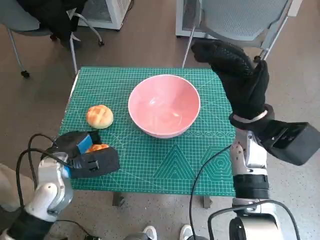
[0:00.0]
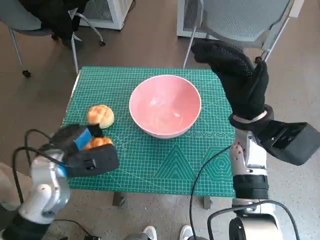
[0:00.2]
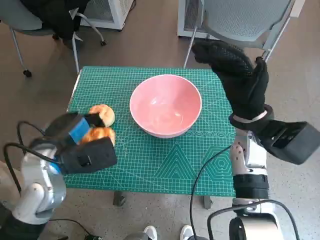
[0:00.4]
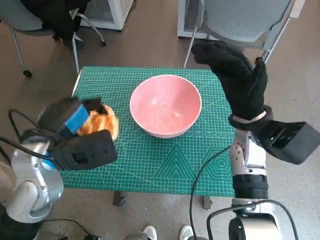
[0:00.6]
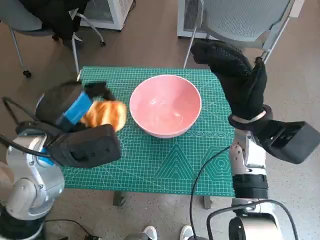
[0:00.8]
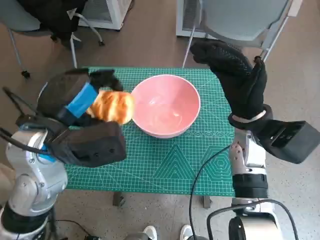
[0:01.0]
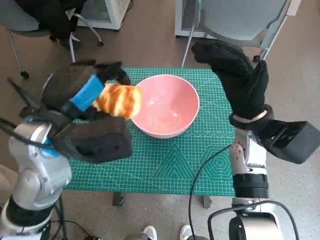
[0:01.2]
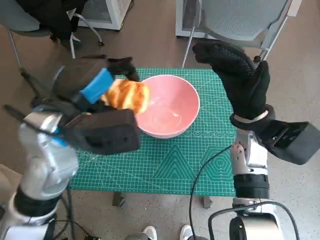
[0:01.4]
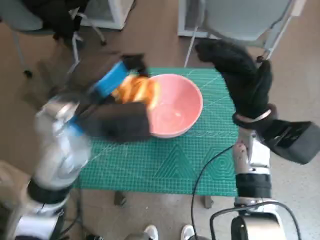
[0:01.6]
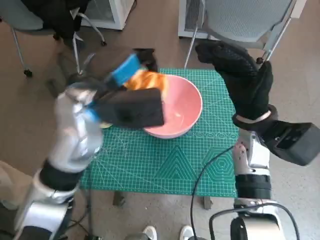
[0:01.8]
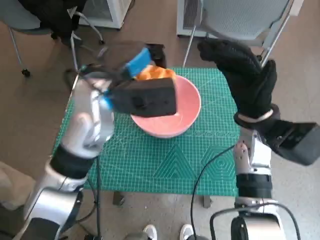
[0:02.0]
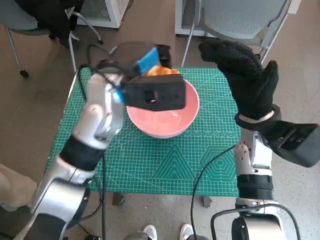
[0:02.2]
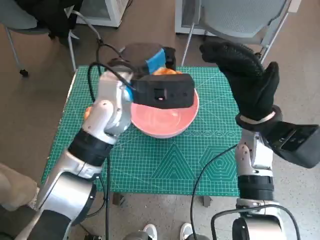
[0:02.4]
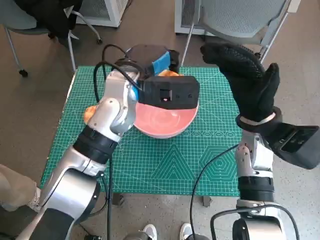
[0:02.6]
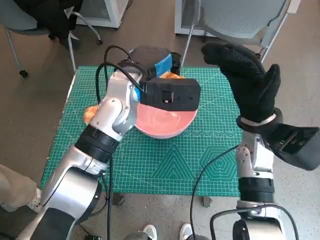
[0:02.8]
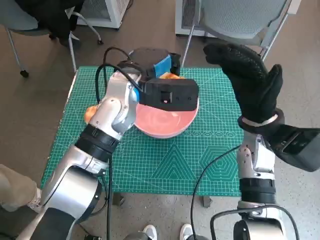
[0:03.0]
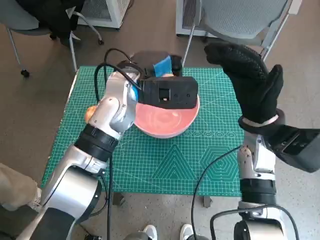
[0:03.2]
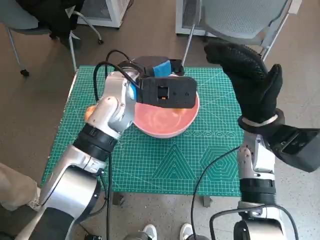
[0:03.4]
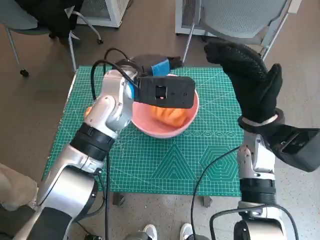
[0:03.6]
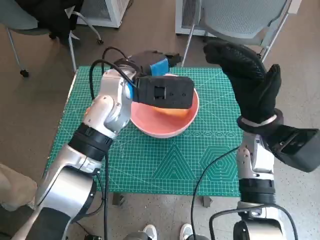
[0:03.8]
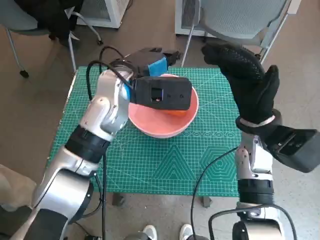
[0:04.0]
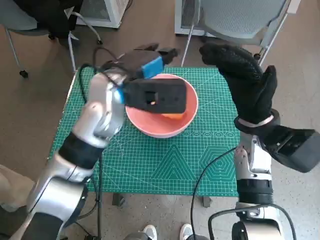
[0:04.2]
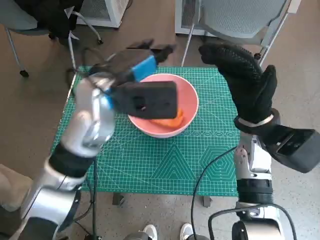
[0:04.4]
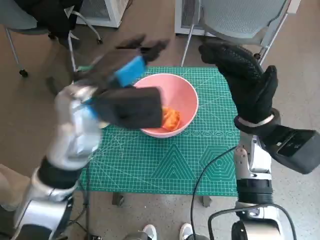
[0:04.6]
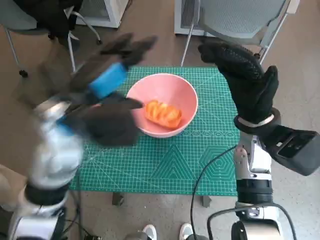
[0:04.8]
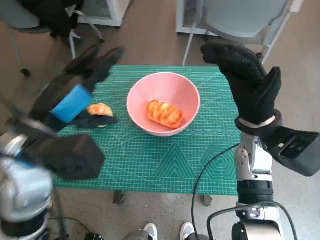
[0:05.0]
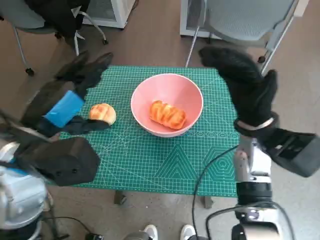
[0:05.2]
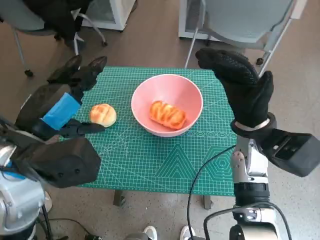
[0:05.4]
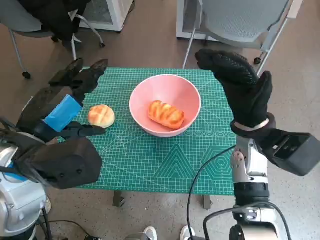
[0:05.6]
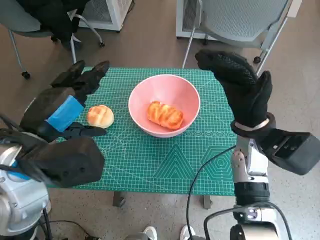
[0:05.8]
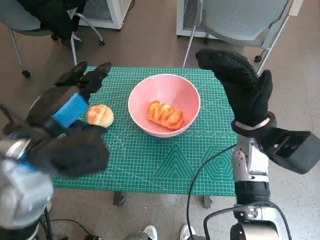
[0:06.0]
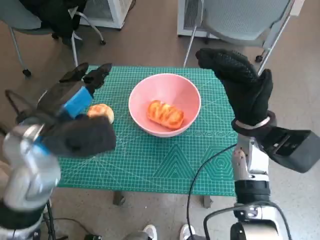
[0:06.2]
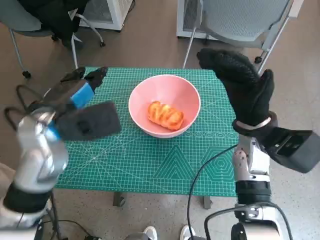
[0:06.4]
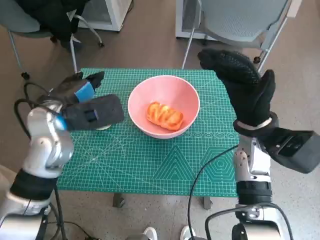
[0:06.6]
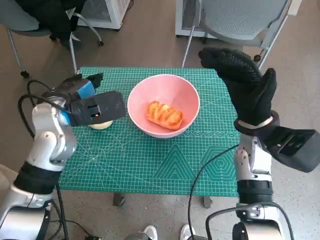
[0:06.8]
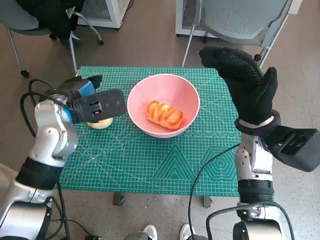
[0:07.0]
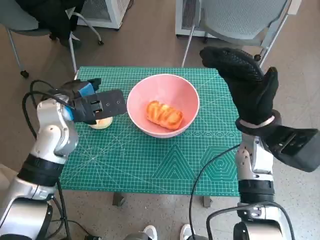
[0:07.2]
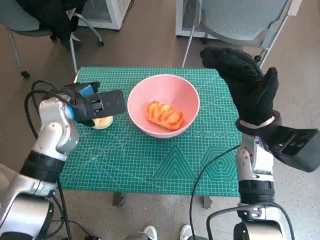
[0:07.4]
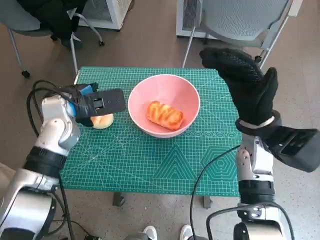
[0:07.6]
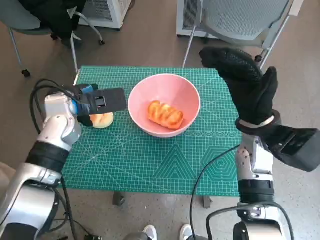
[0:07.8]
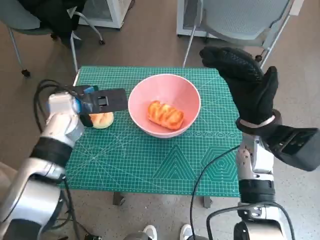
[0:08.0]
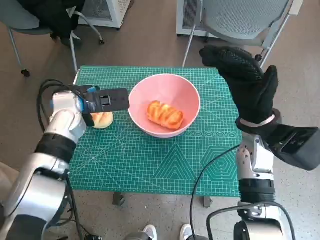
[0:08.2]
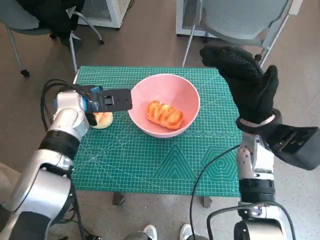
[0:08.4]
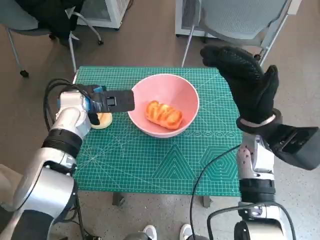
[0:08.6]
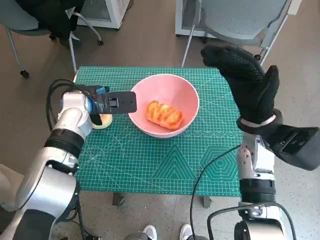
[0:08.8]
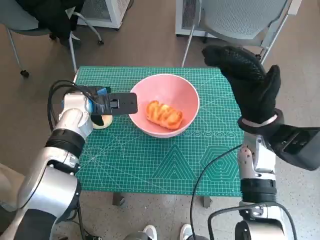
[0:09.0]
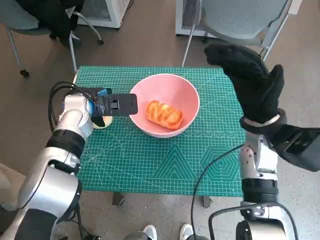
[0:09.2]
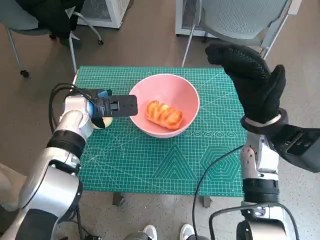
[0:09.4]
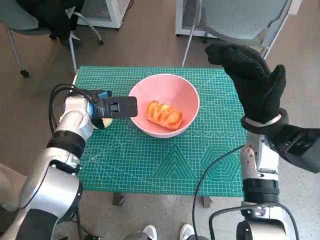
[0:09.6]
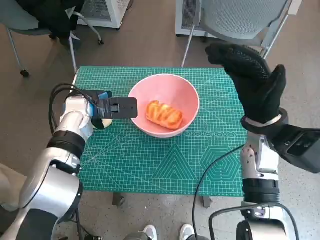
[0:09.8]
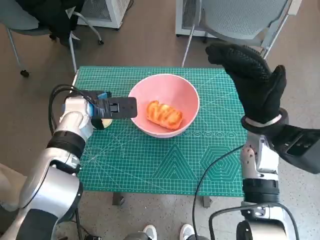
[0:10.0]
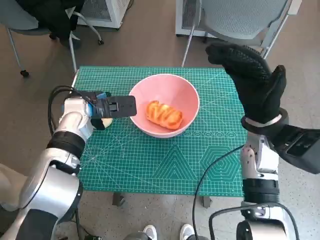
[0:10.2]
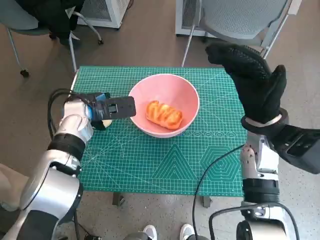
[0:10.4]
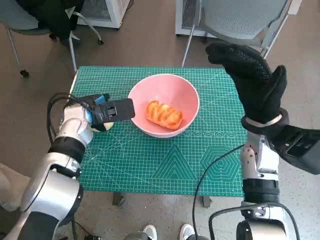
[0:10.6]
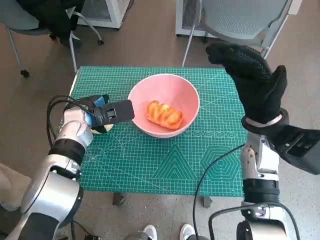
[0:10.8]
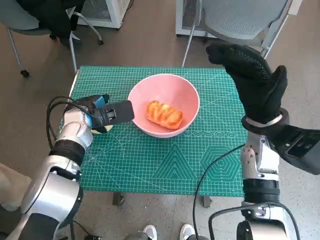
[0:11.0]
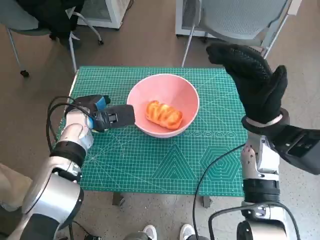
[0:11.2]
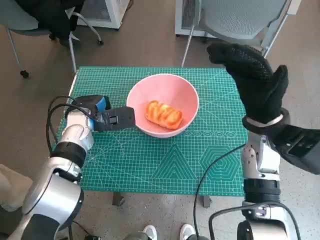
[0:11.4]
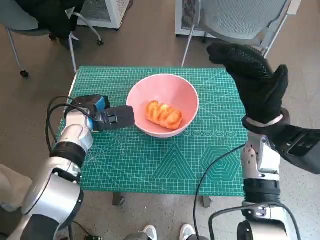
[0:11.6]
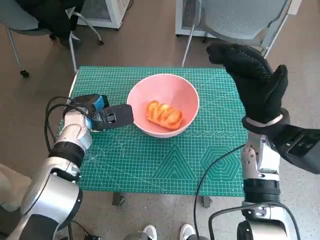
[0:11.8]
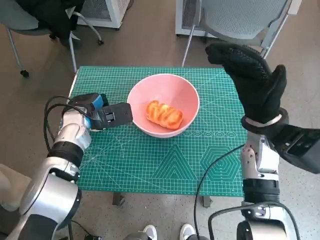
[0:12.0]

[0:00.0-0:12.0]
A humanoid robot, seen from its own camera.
Step, 0.0 to 3.8 s: Place the long bread in pink bowl with left hand.
Step, 4.0 to 11.4 s: Grasp the round bread with left hand.
0.0 to 1.6 s: The left hand heads upward and to the right, covering roughly 15 cm.
1.6 to 3.0 s: The left hand moves forward and to the right, approximately 10 cm.
3.0 to 4.4 s: The left hand moves some 5 cm.
4.4 to 6.0 s: The left hand is displaced backward and to the left by some 15 cm.
6.0 to 7.6 s: The left hand moves forward and downward, about 15 cm.
7.6 to 10.4 s: The hands stay close to where they were, moving slightly.
10.4 to 12.0 s: The hands make only small movements.

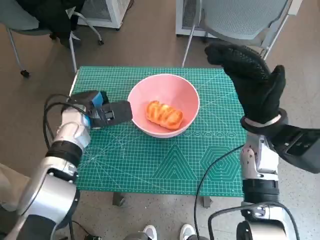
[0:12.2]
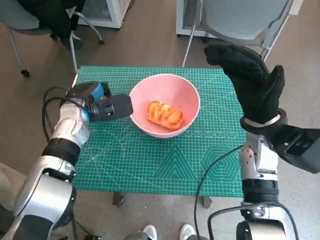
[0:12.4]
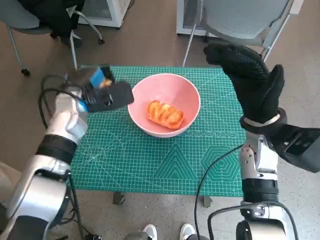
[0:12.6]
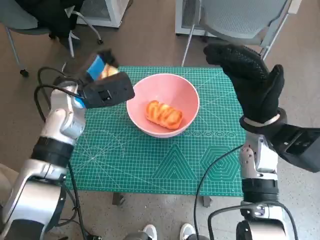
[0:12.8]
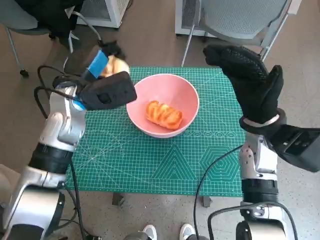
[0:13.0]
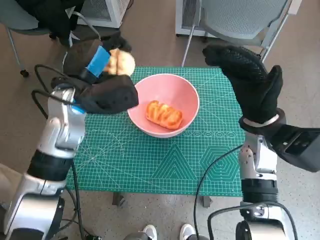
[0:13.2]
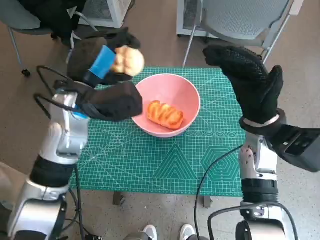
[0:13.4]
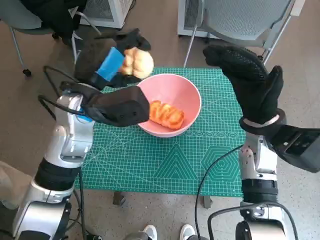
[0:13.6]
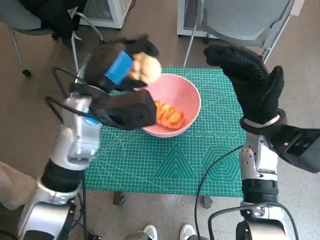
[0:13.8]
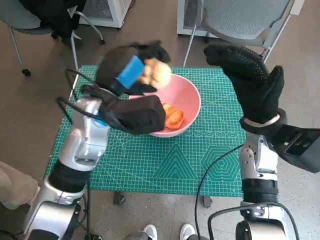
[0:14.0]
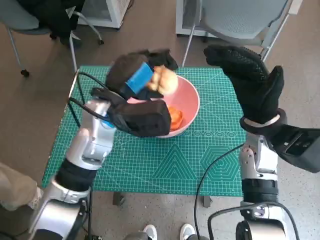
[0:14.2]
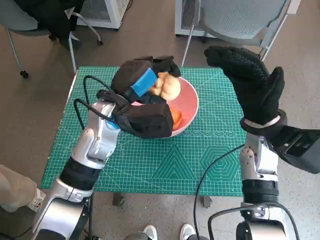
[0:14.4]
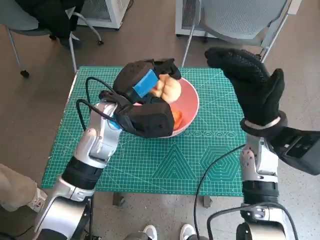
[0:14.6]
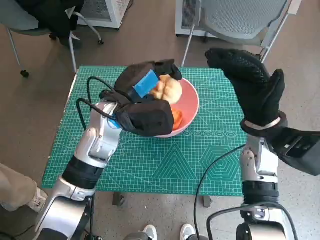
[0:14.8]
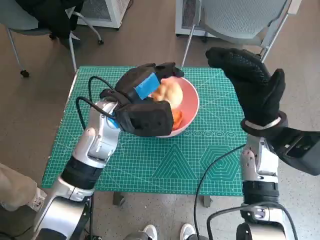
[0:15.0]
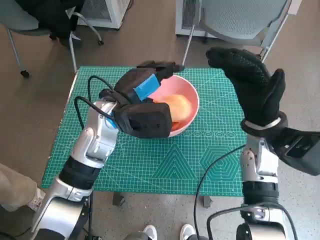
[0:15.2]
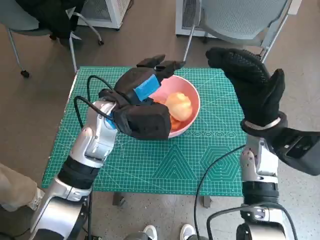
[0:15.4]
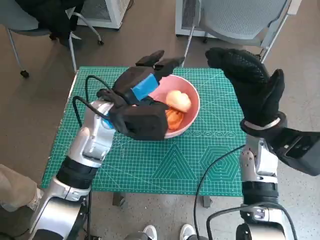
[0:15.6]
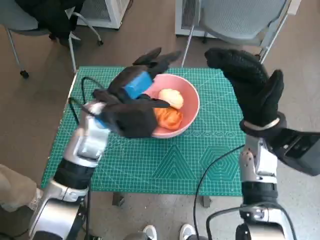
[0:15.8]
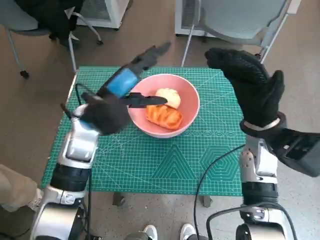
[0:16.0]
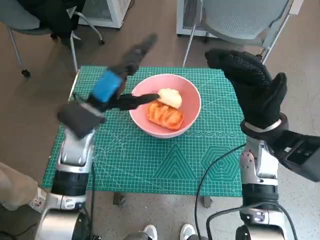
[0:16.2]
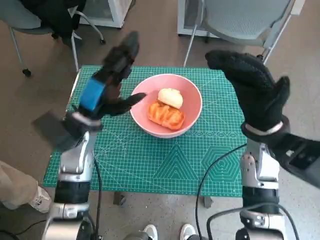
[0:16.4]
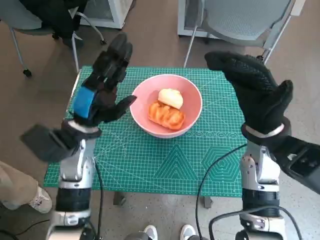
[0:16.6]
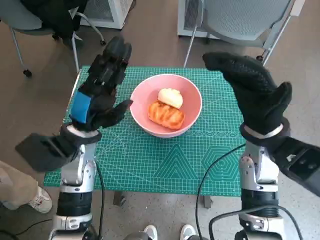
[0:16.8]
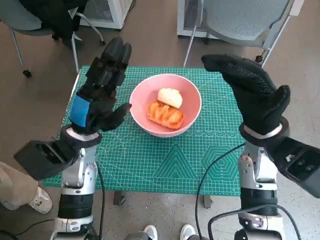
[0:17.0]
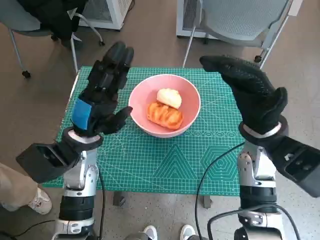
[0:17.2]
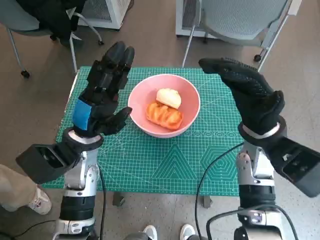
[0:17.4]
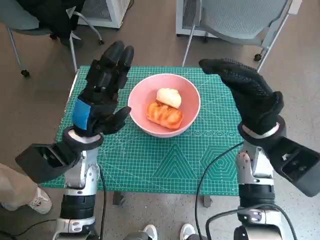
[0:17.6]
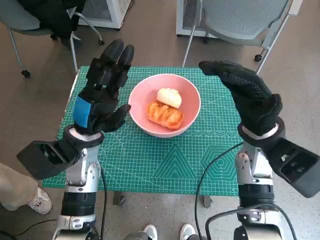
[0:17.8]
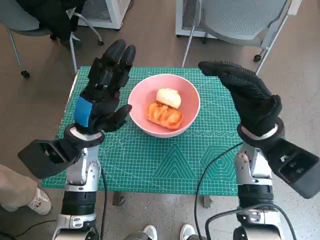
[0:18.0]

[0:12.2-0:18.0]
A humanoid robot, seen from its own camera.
Step, 12.2 to 15.2 s: Place the round bread in pink bowl with left hand.
12.2 to 13.6 s: The left hand is displaced upward and to the right by roughly 10 cm.
13.6 to 15.0 s: The left hand shifts by about 5 cm.
15.0 to 16.6 s: The left hand goes roughly 5 cm to the left.

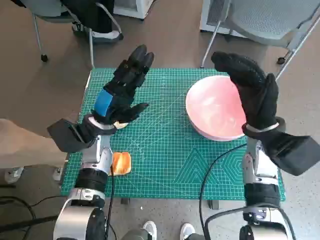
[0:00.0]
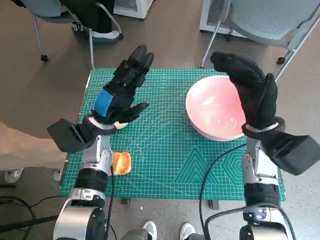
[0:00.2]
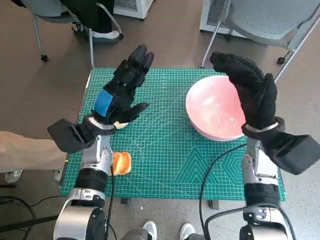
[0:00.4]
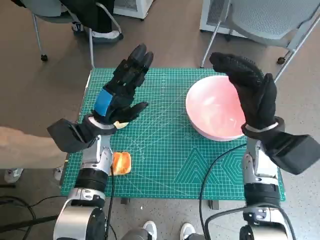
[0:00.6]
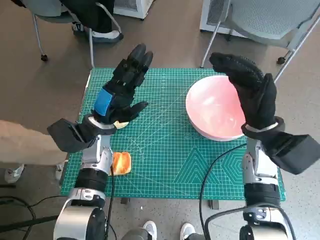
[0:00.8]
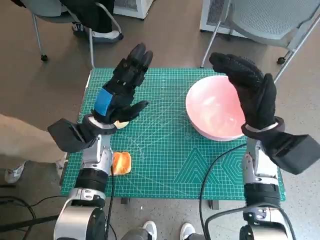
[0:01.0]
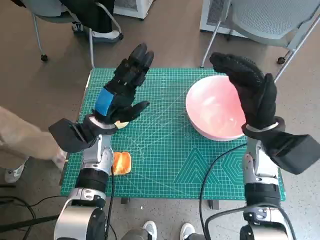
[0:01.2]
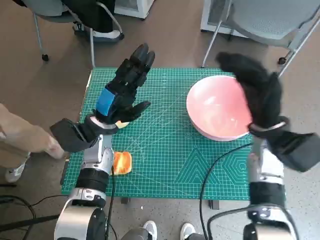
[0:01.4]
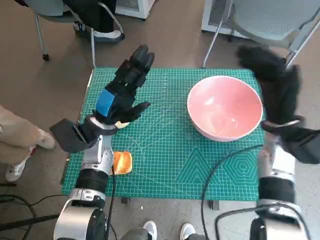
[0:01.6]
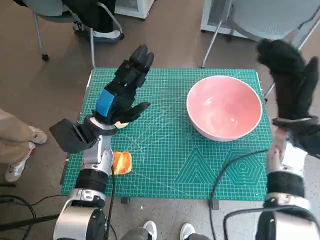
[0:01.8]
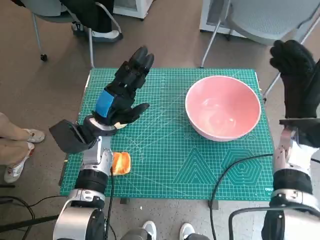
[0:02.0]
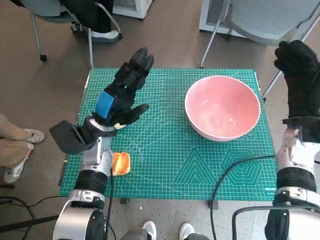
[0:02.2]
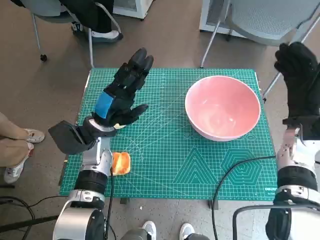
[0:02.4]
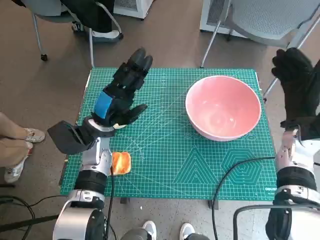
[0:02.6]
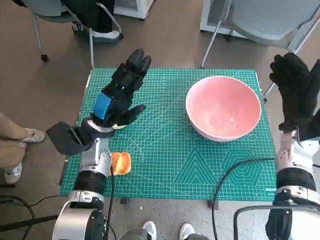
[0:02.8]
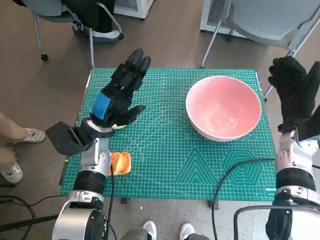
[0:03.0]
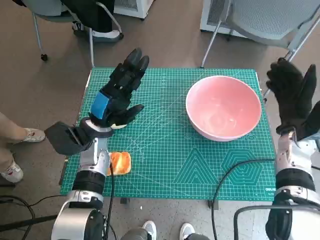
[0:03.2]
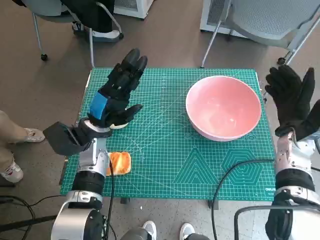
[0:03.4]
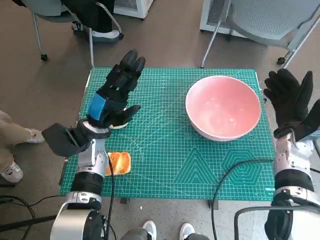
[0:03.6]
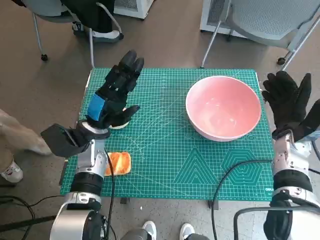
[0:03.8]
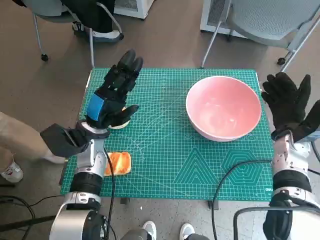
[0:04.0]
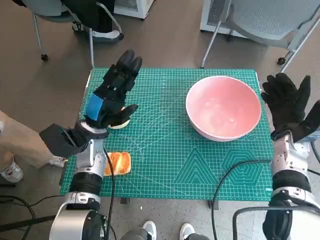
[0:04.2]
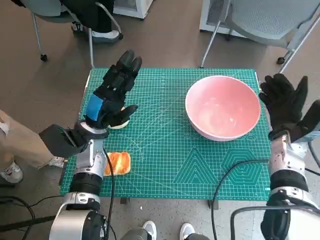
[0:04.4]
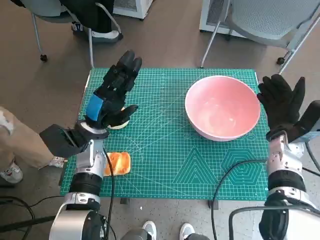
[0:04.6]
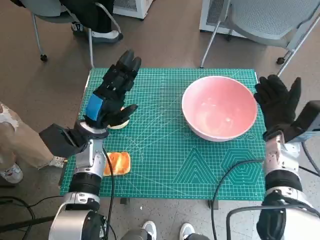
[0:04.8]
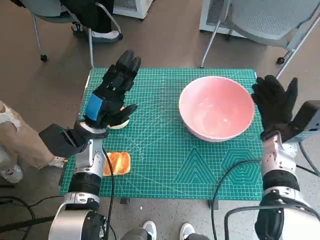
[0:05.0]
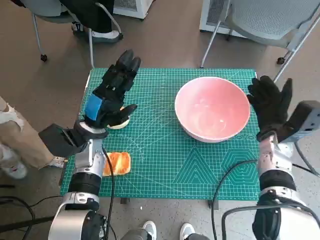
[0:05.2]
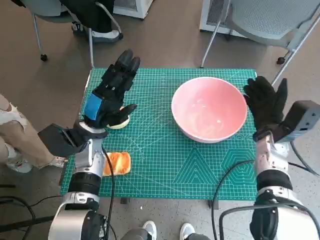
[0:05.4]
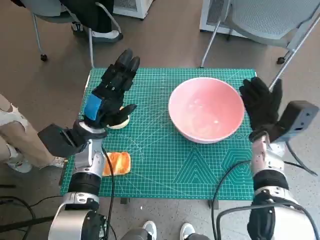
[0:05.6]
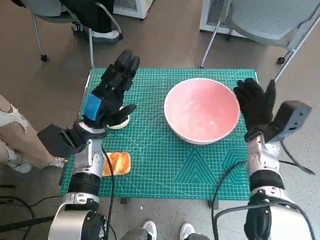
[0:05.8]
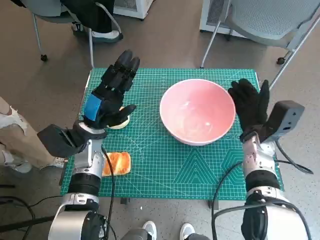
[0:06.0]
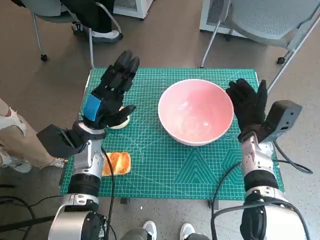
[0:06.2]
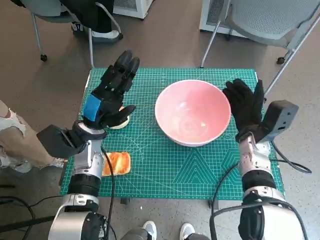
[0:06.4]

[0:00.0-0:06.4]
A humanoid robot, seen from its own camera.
1.6 to 3.2 s: The right hand changes place by some 5 cm.
3.2 to 4.8 s: The hands move only a little.
4.8 to 6.4 s: The right hand goes about 5 cm to the left.
